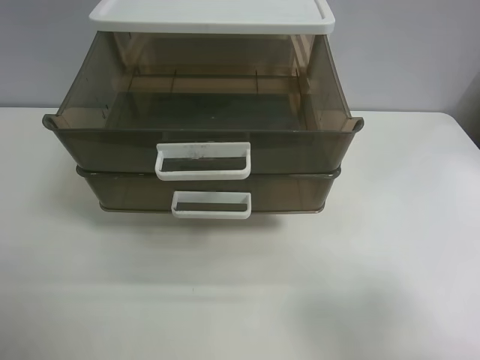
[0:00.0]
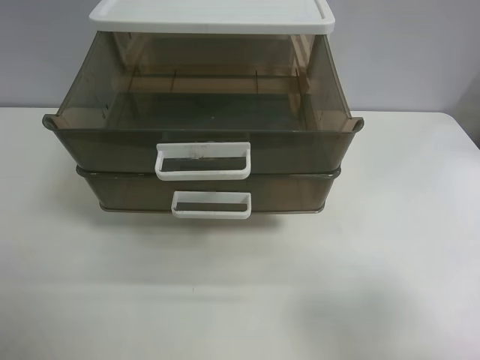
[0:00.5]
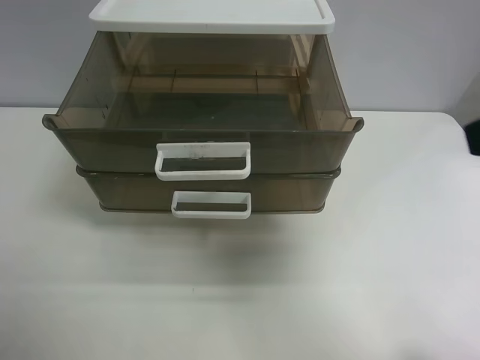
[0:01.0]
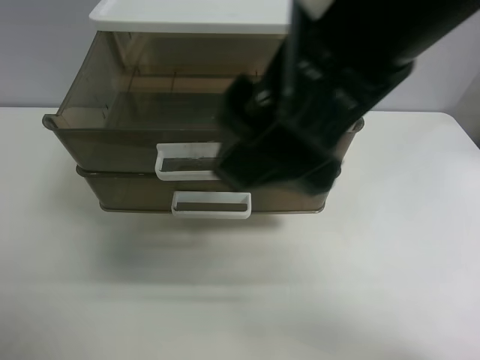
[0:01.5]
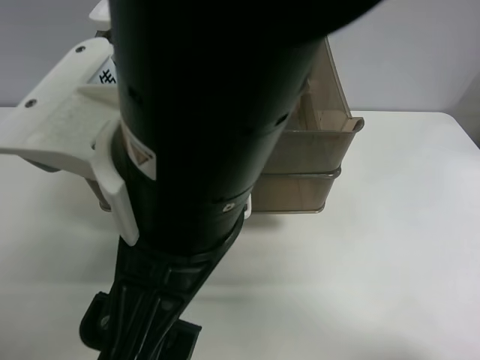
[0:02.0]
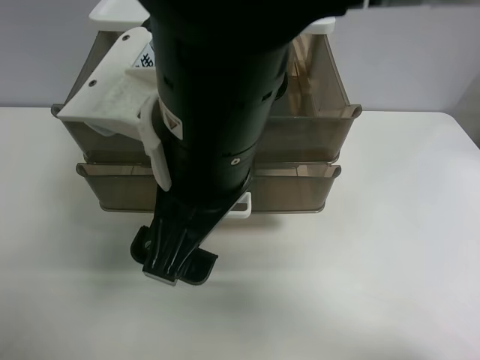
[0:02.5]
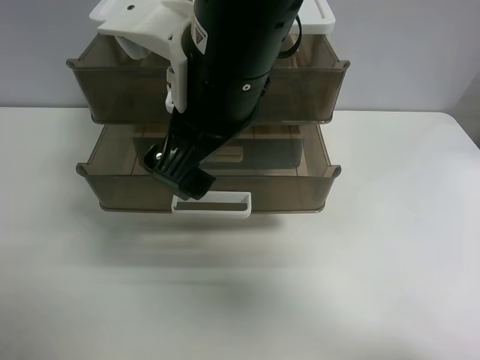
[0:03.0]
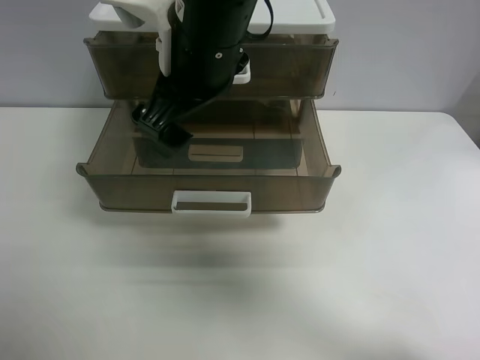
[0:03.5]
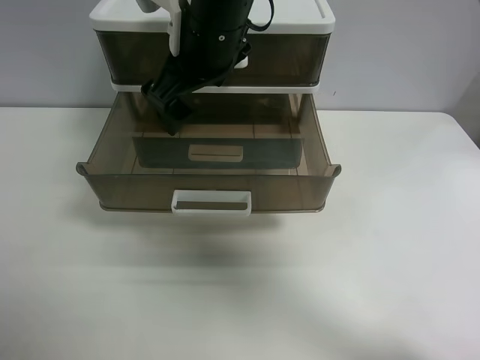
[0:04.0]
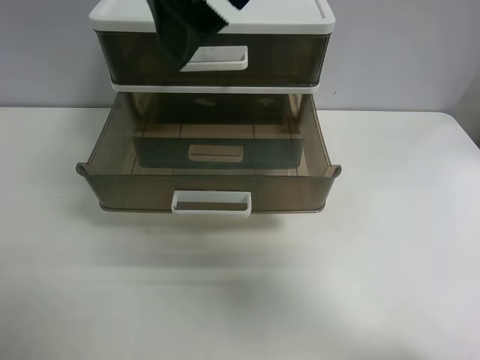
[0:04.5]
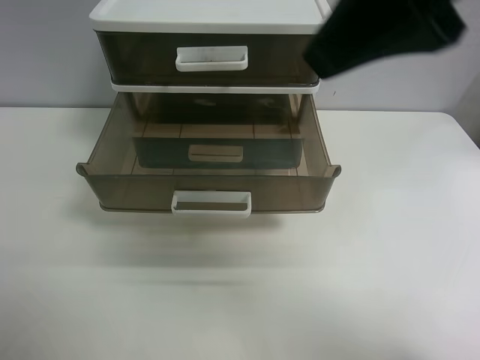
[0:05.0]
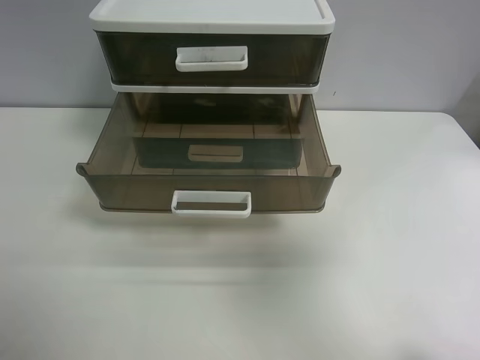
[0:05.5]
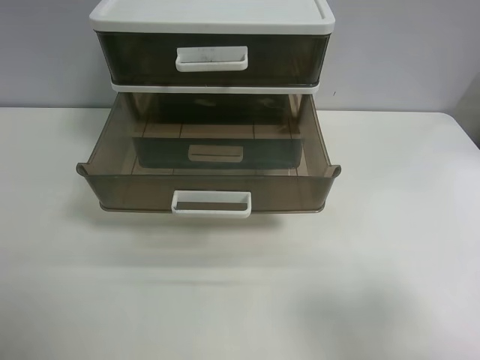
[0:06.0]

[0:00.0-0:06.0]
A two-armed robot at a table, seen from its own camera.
Task of the whole recording: close the top drawer.
Step, 0:00.0 to 0:02.0: Use the right gripper to touch the topmost layer of the storage cabinet.
Step, 0:02.5 to 0:04.0: Push the top drawer closed.
0:00.0 to 0:02.0: The right gripper moves to the left, roughly 30 cm.
0:02.0 to 0:04.0: The right gripper travels forward by about 20 cm.
0:04.0 to 0:06.0: The right gripper travels to the right and backward by some 40 cm.
